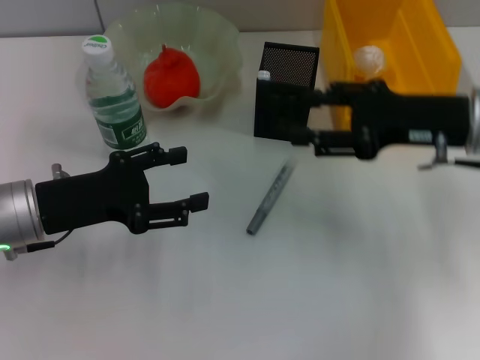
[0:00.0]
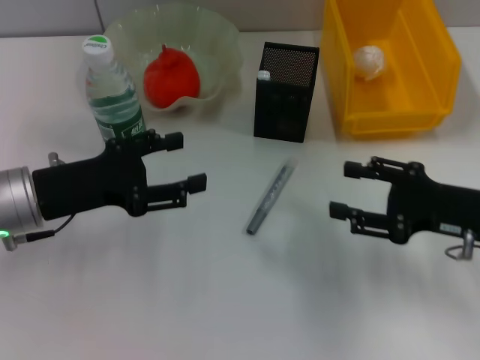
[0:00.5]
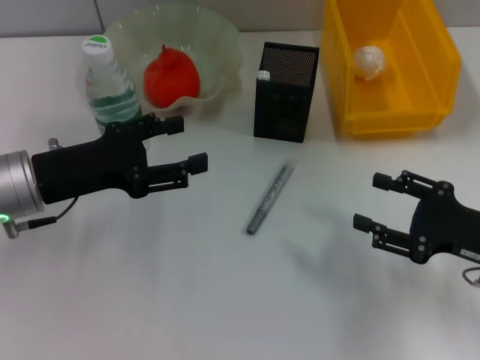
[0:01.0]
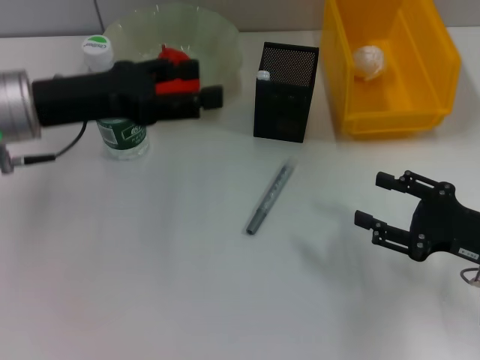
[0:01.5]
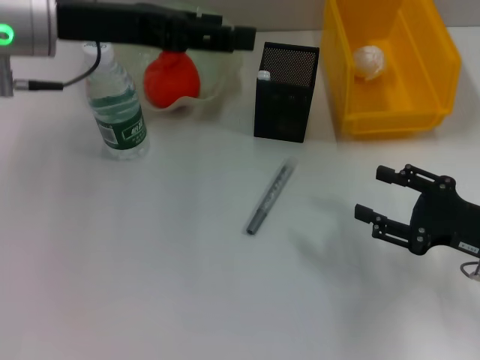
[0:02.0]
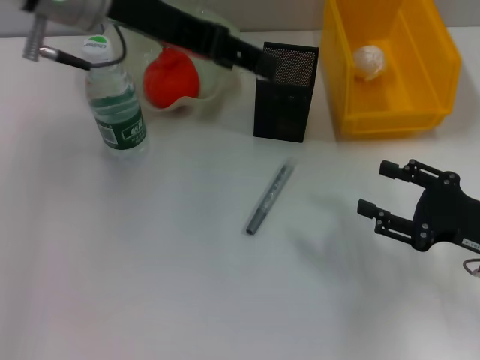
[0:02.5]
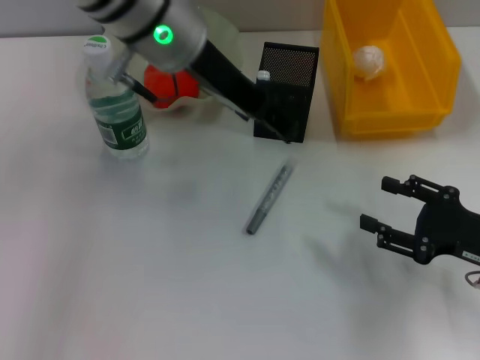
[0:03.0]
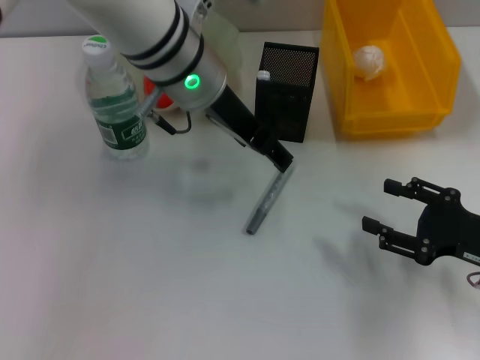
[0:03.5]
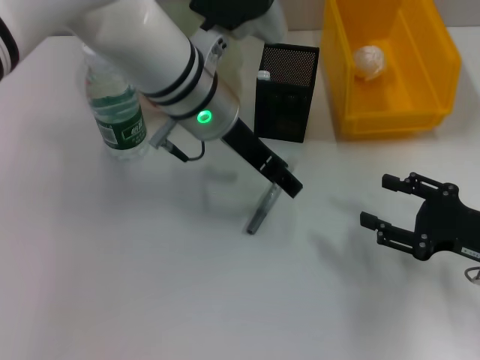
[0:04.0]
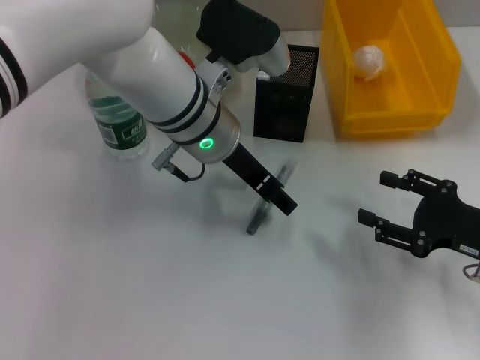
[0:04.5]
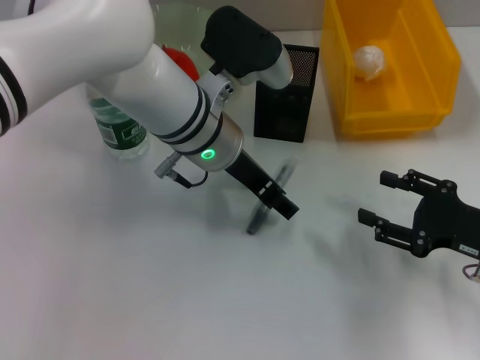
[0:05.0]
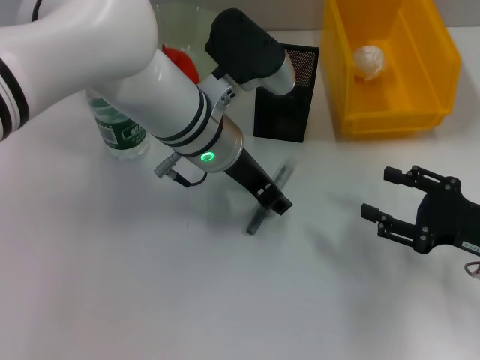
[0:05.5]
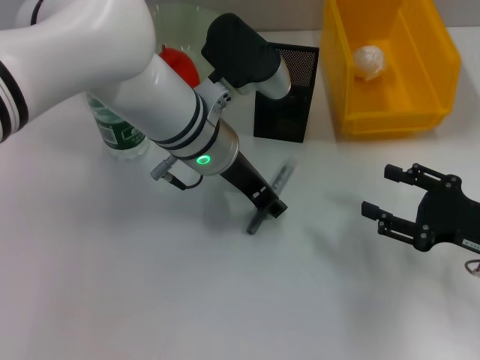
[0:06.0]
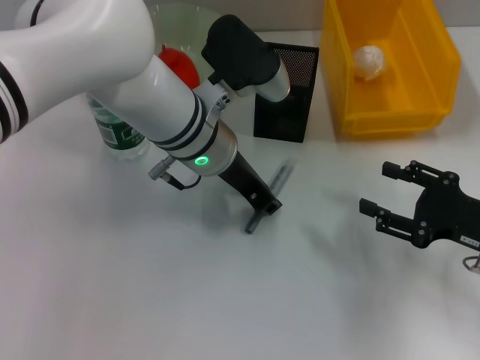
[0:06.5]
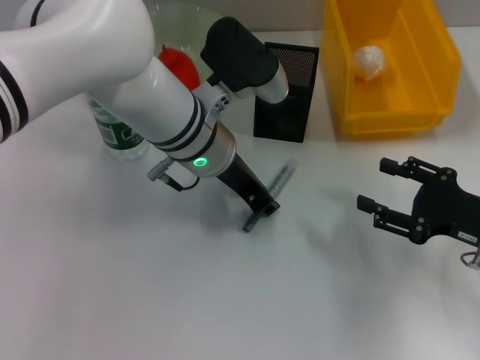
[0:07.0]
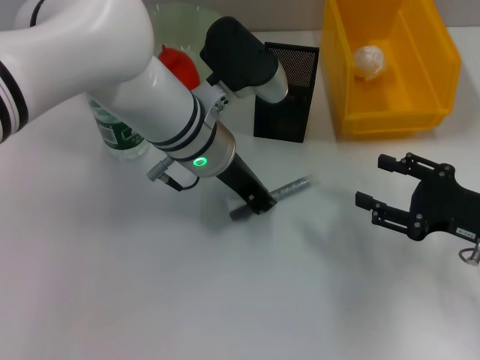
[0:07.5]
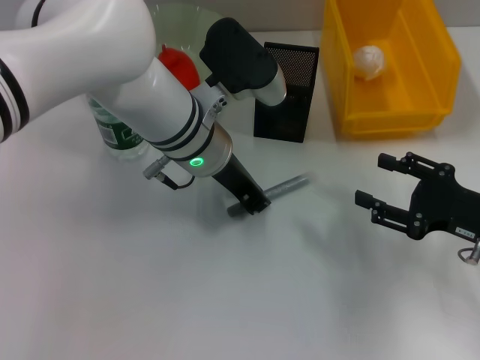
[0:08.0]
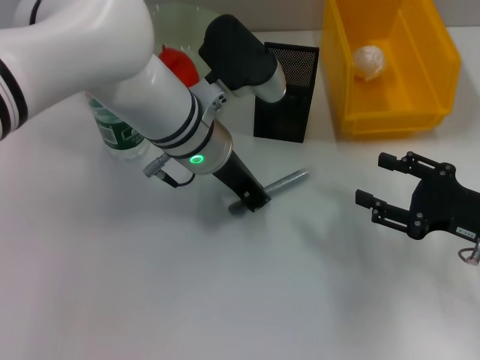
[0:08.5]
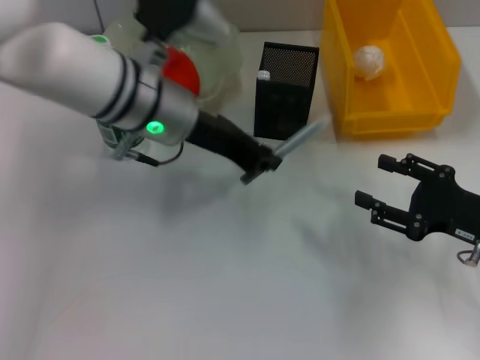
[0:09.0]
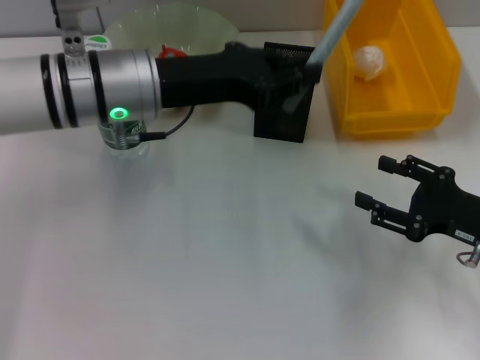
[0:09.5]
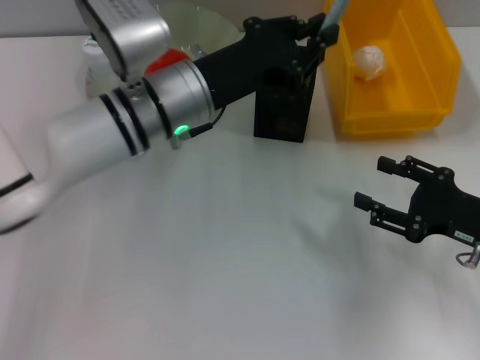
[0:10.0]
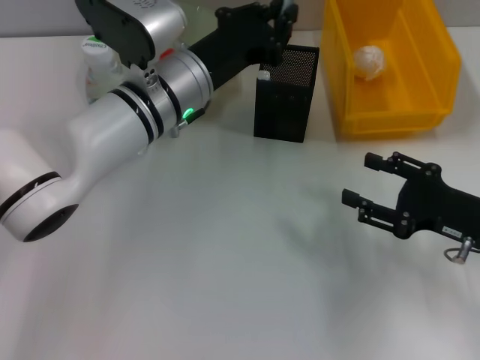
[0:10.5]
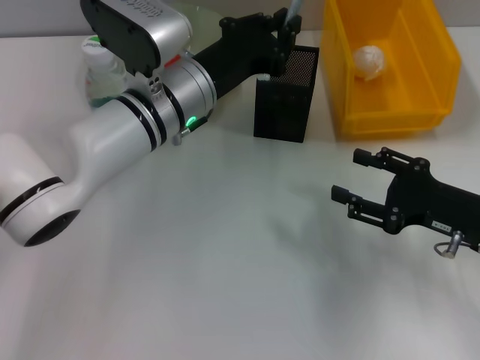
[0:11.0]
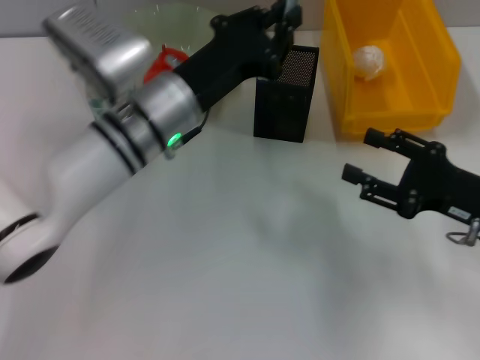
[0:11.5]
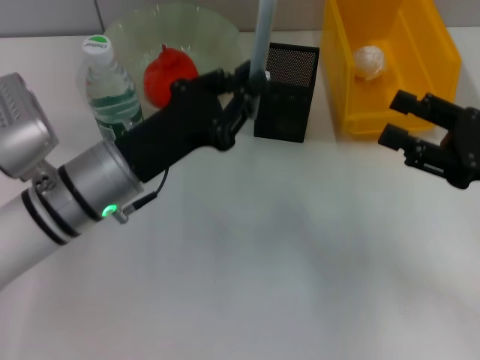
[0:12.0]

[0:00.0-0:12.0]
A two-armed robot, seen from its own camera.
Step, 0:00.0 to 0:08.0: Grab the gray glue with the left hand.
0:00.0 to 0:02.0: The left gripper heads upward and forward, covering roughly 15 cm. The right gripper shifts some 15 cm downward, backward and to the right.
0:02.0 to 0:04.0: The left gripper travels to the right and downward by about 15 cm.
0:04.0 to 0:06.0: The left gripper closes.
0:06.0 to 0:08.0: The left gripper closes its fingers.
0:10.0 to 0:12.0: The right gripper travels upward by about 5 cm; the left gripper heads to the left and backward, covering some 10 cm.

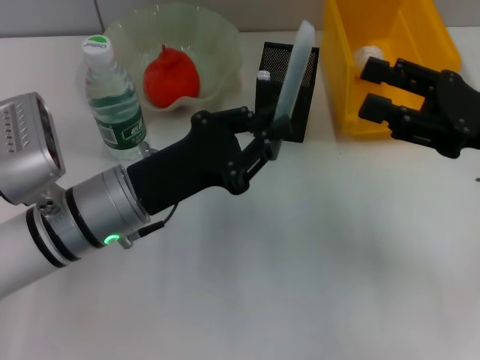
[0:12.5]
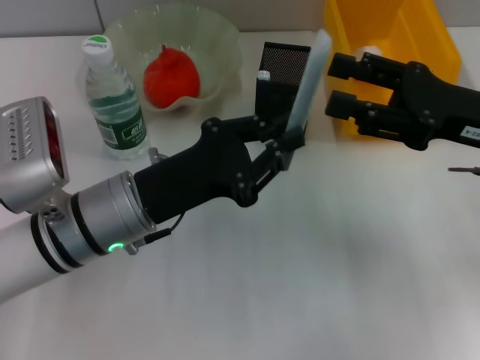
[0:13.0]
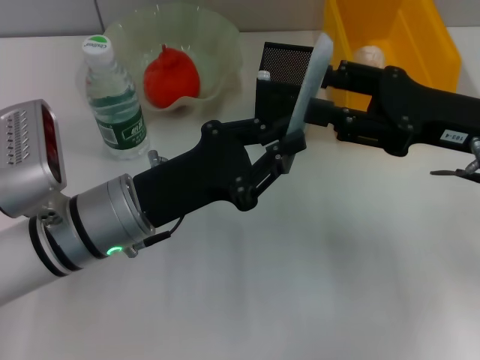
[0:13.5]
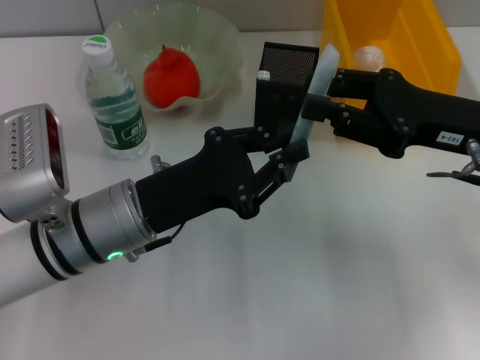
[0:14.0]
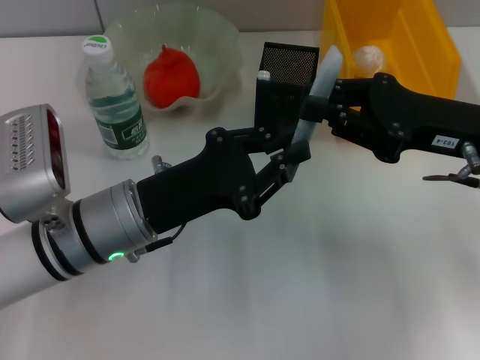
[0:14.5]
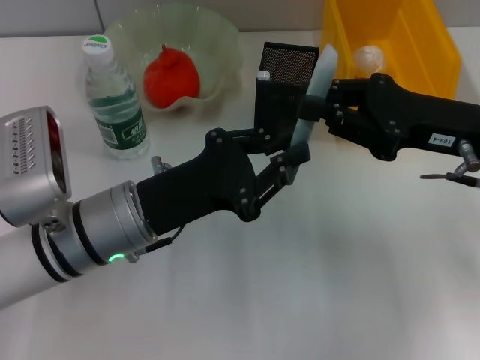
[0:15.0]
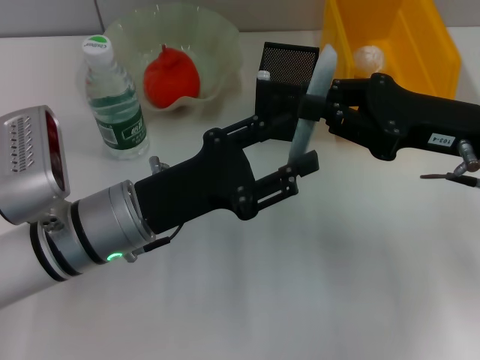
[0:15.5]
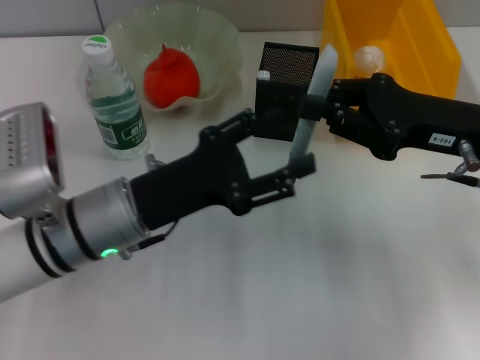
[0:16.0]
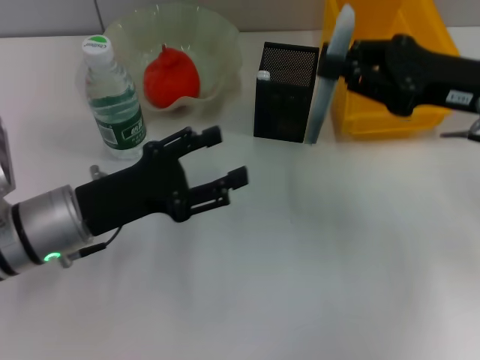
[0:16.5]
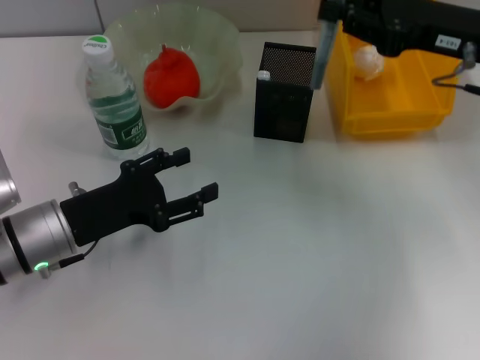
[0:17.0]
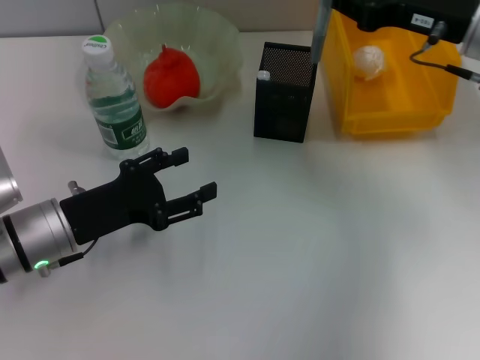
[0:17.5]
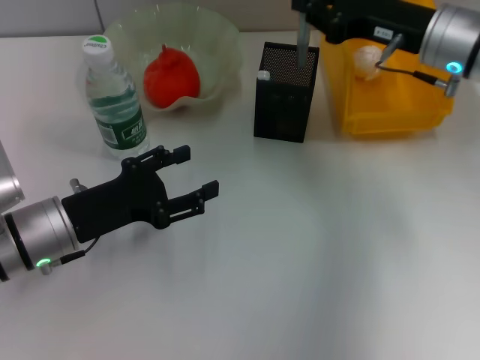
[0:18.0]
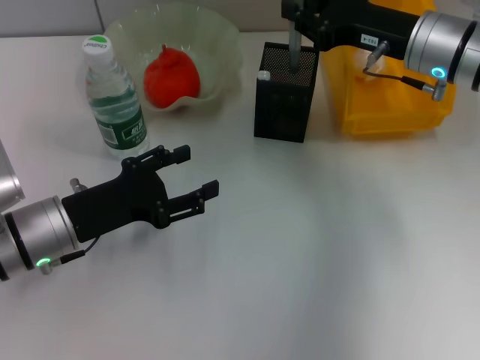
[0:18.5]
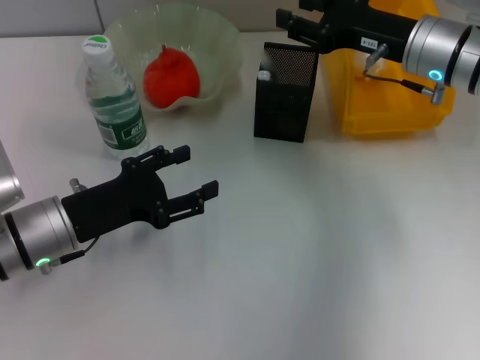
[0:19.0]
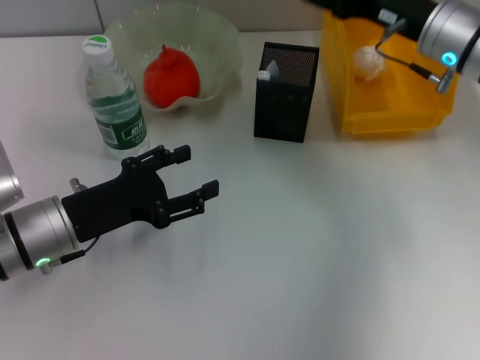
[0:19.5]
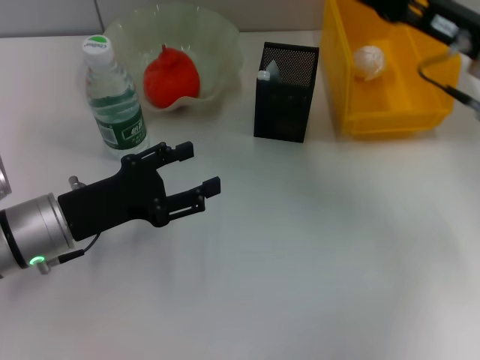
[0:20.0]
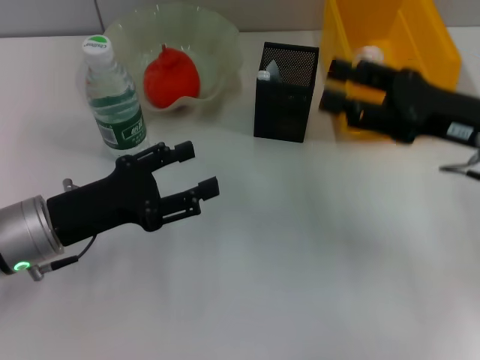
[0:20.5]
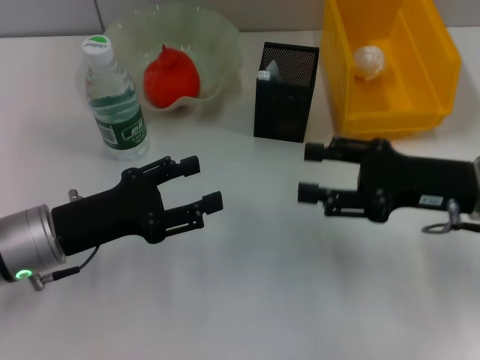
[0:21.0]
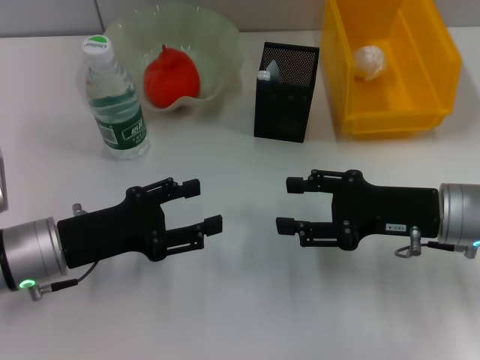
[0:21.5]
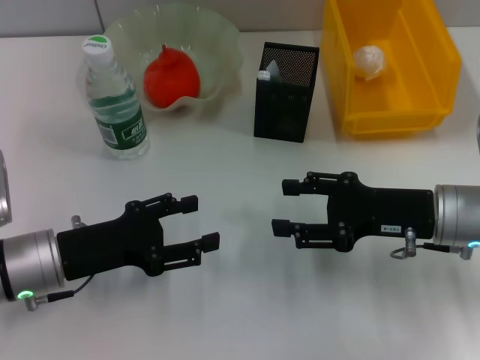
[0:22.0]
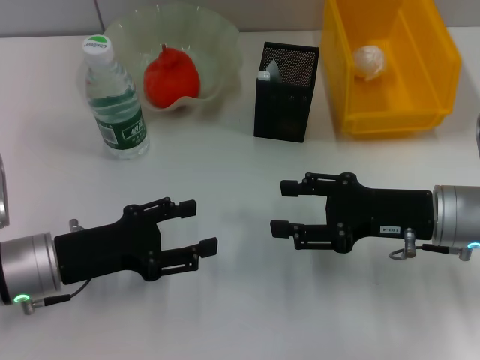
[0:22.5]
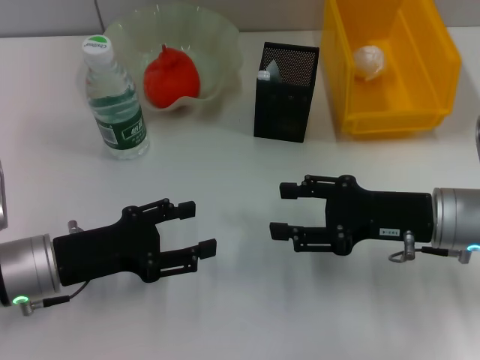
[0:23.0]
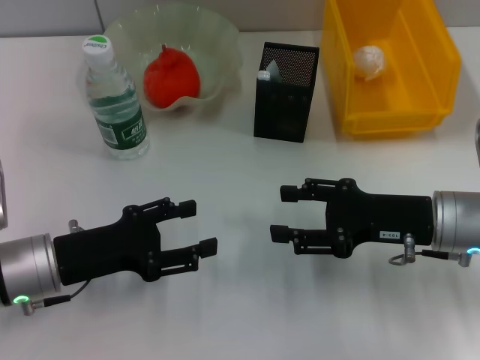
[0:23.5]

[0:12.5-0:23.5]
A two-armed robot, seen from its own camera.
Step, 0:12.5 to 0:14.5: Pass the gray glue from the left hand to the right hand.
Step, 0:15.5 to 0:19.0: Place the gray glue into the pen holder with the right hand.
0:12.5 to 0:14.5: The right gripper closes up.
0:14.5 to 0:16.0: The left gripper opens up.
0:16.0 to 0:18.0: The left gripper travels to the left by some 5 cm. Meanwhile the right gripper is displaced forward by approximately 10 cm.
0:18.0 to 0:20.0: The right gripper moves approximately 5 cm, and opens its fingers.
0:20.0 to 0:21.5: The right gripper is displaced downward and backward by about 10 cm.
0:21.5 to 0:23.5: Neither gripper changes place.
